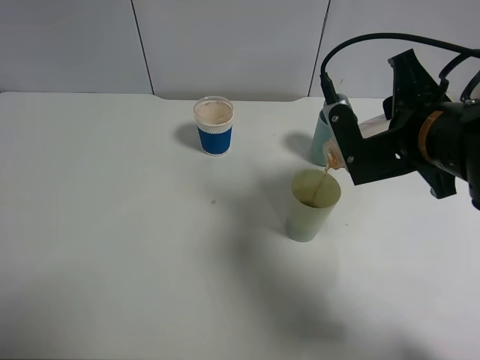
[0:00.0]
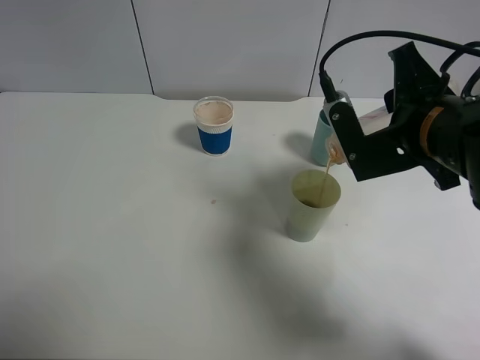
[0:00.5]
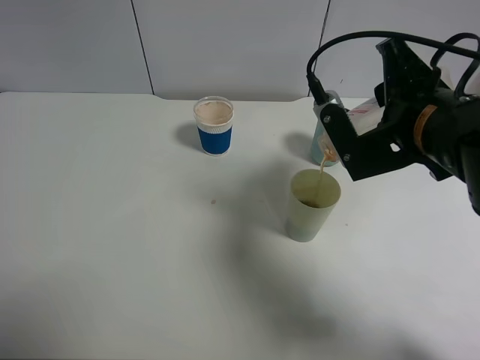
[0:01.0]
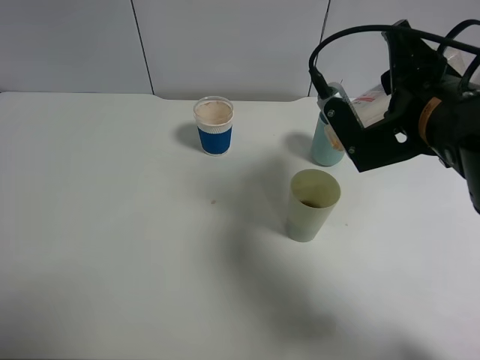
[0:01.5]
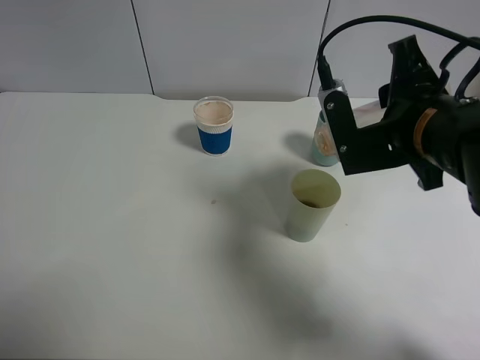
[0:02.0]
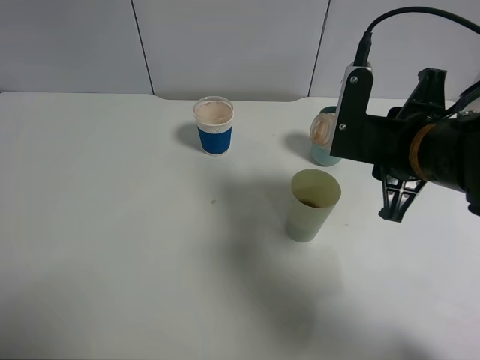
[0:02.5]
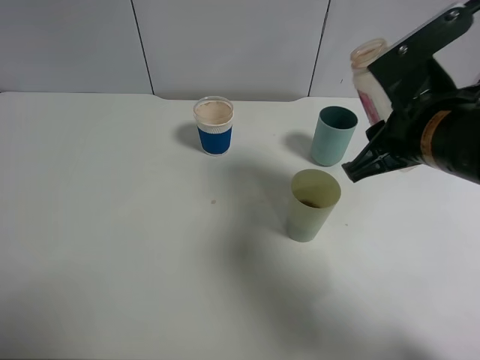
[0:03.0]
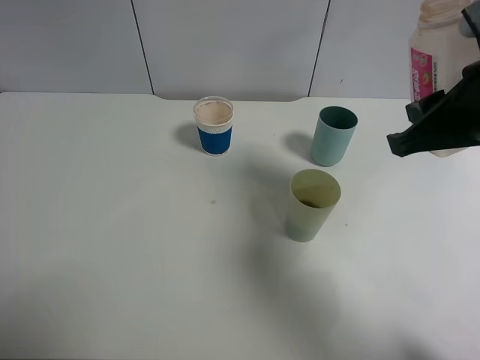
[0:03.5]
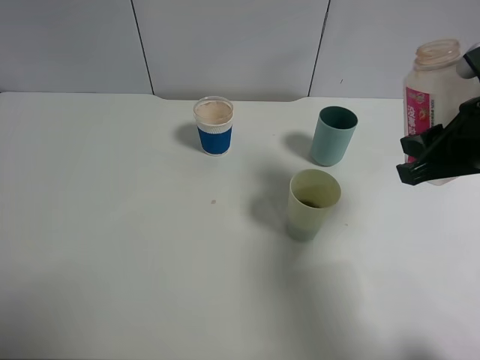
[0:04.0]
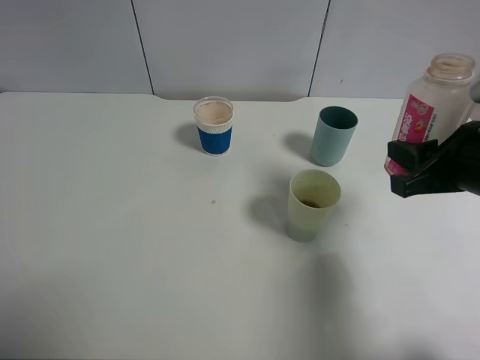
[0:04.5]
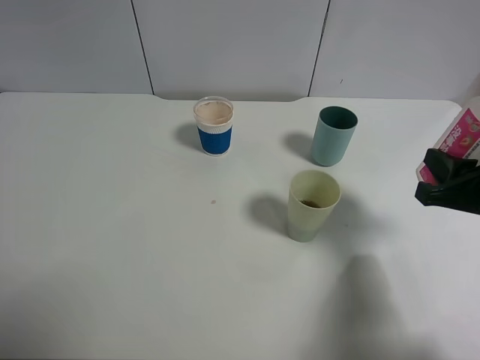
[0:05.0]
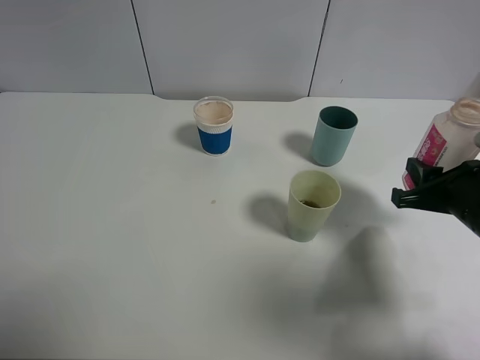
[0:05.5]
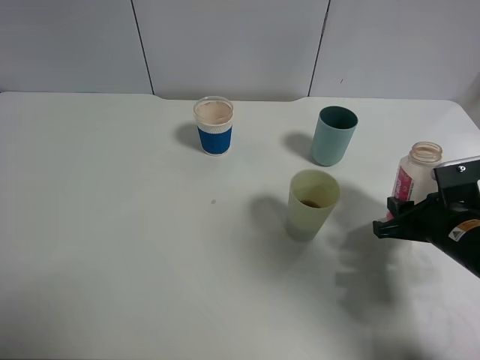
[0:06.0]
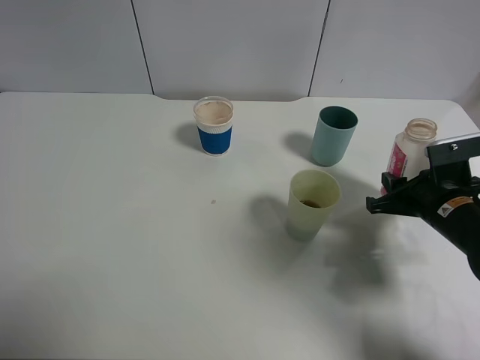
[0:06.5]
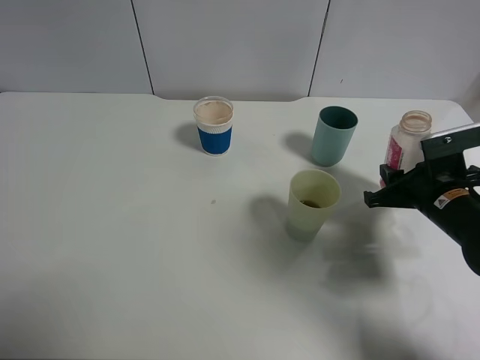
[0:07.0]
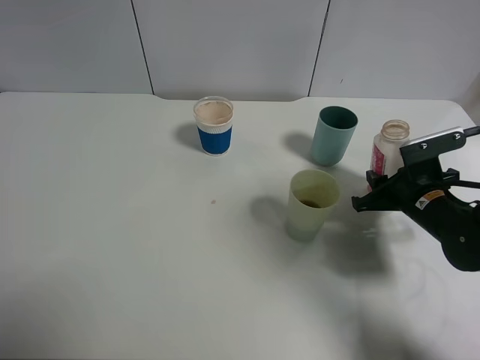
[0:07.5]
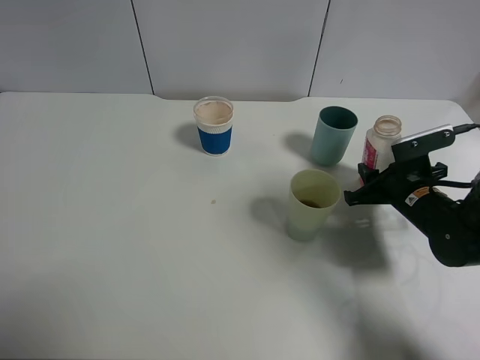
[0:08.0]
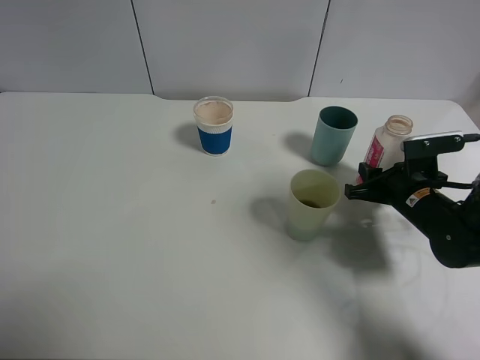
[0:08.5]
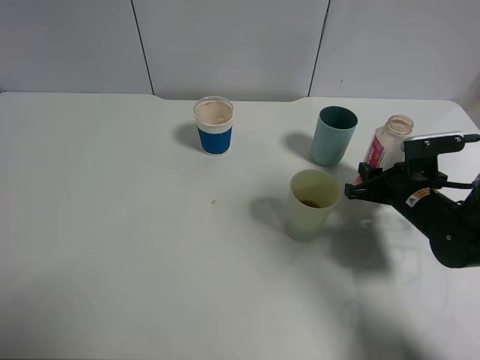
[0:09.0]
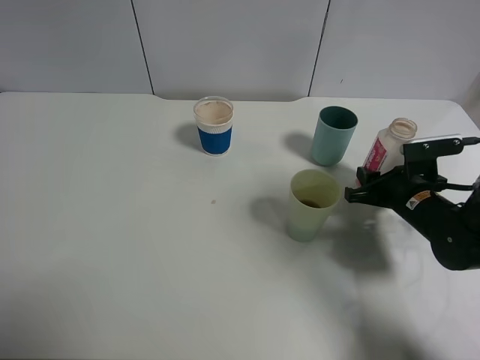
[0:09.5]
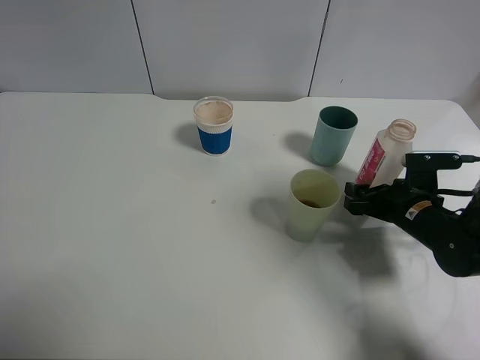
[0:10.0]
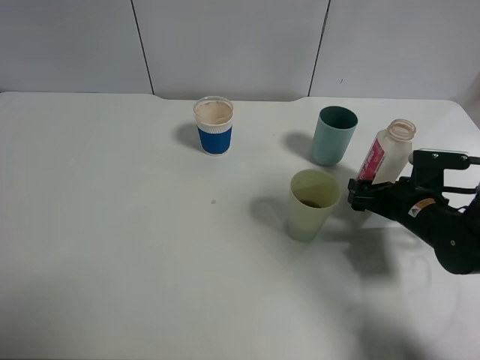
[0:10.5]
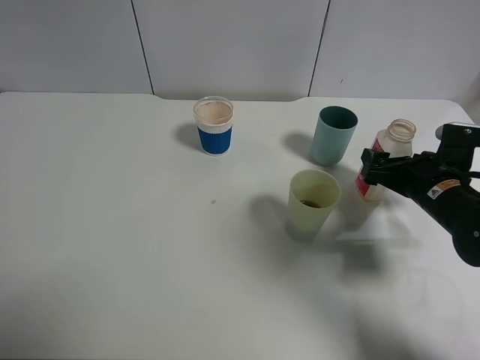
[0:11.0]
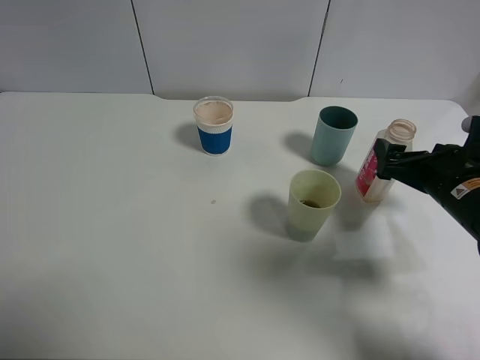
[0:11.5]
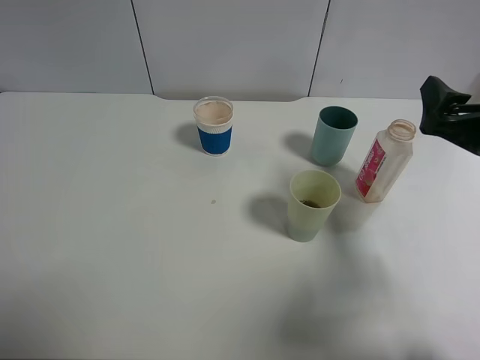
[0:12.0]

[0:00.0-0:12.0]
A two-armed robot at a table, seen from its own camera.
Task of the whole recording: use a clamp to hold the bottle of the drink, pour the beverage into a random cup, then clamp the cup containing the drink and pour the drink into another random cup.
Step, 0:00.0 to 0:02.0: Pour the drink into the green plastic cup with right gripper.
Step, 0:02.5 to 0:10.0: Place the drink bottle on the table with right gripper.
0:00.0 to 0:02.0: The grippers stay close to where they were, moving slightly.
0:02.0 to 0:04.0: The right gripper is displaced to the right by approximately 5 cm.
0:04.0 to 0:06.0: The right gripper travels downward by approximately 15 cm.
0:06.0 to 0:08.0: The right gripper travels forward by some 5 cm.
0:08.0 to 0:10.0: The right gripper opens its fingers.
0:10.0 to 0:12.0: The right gripper moves upward, approximately 15 cm.

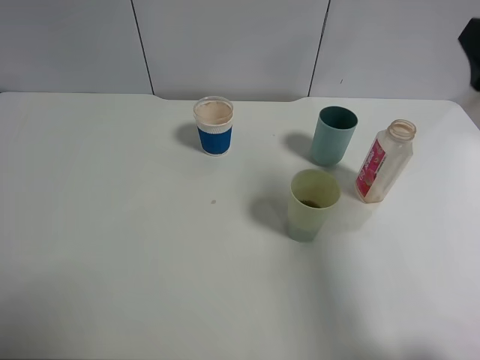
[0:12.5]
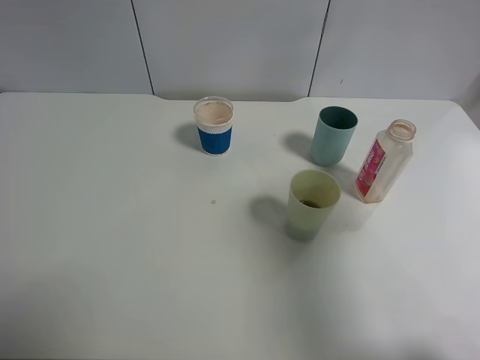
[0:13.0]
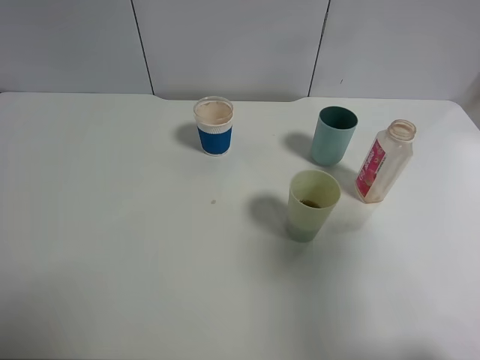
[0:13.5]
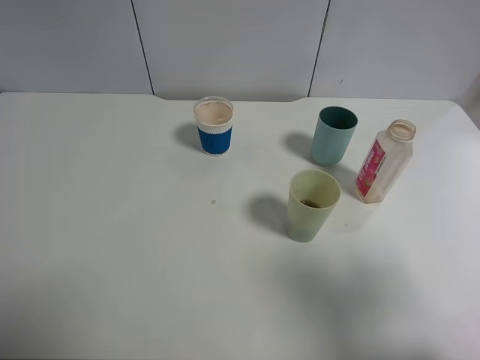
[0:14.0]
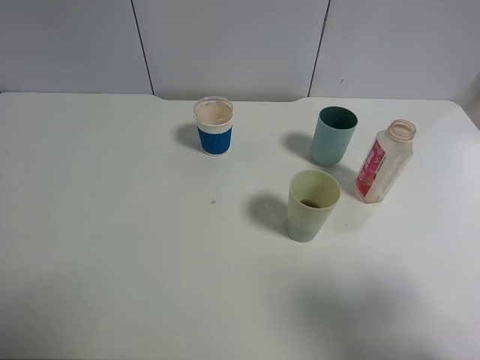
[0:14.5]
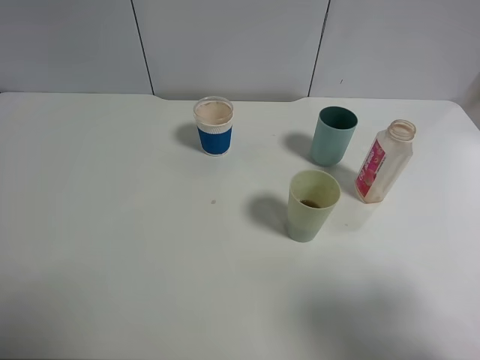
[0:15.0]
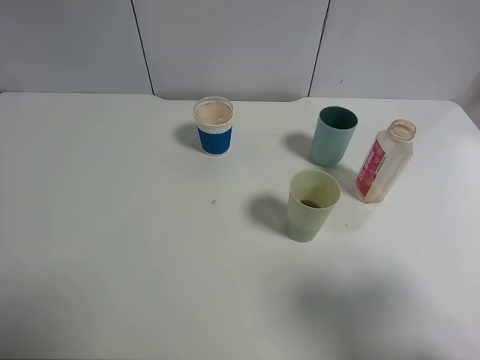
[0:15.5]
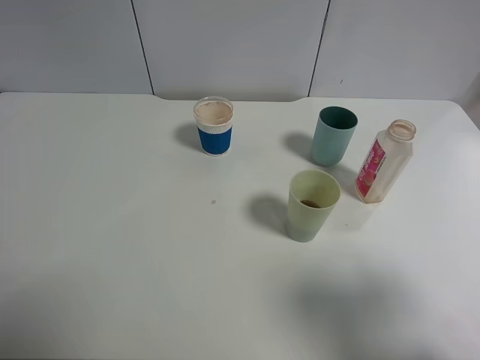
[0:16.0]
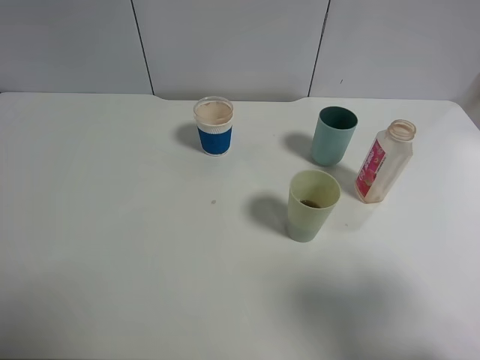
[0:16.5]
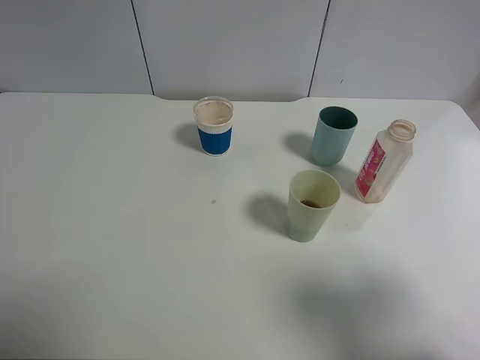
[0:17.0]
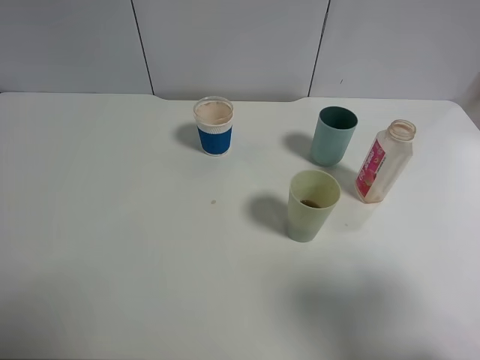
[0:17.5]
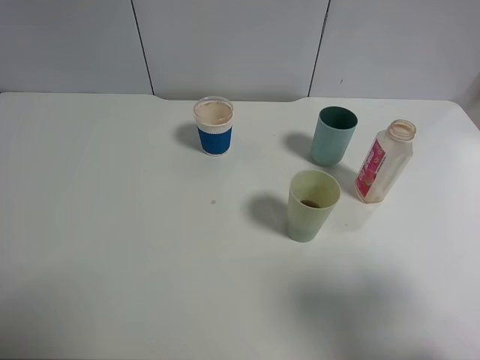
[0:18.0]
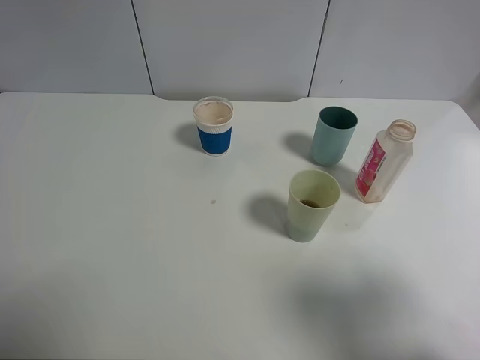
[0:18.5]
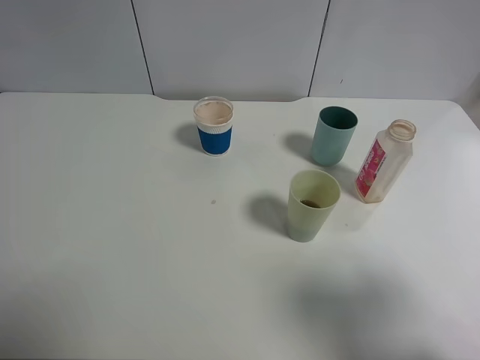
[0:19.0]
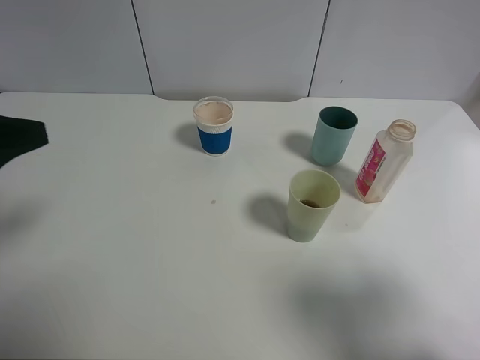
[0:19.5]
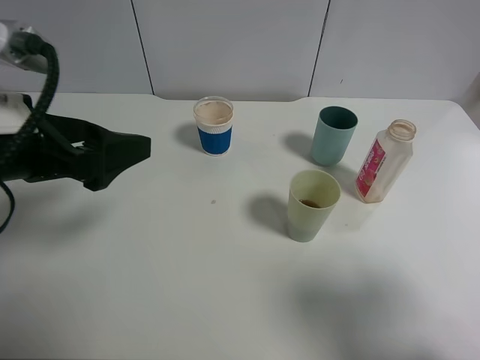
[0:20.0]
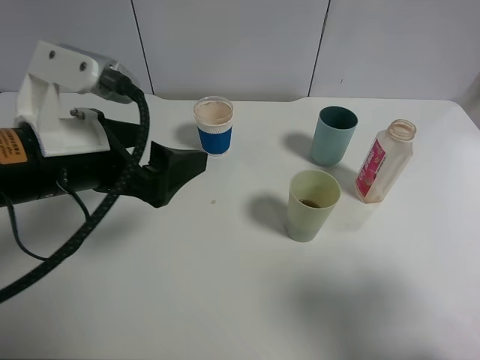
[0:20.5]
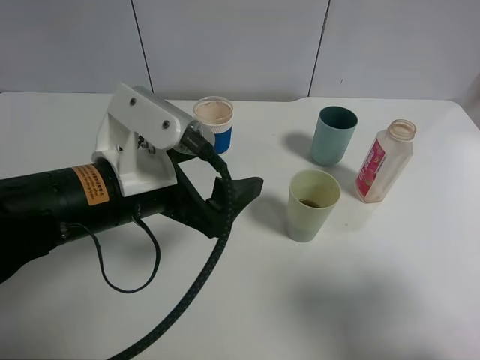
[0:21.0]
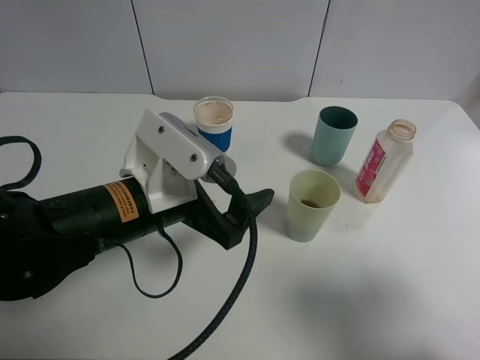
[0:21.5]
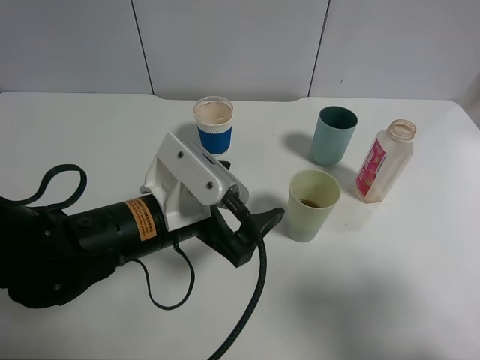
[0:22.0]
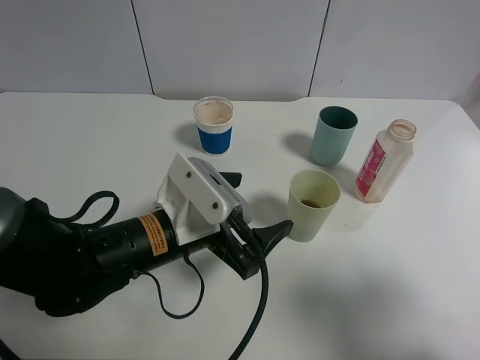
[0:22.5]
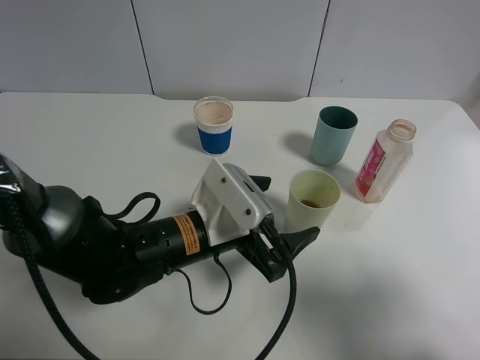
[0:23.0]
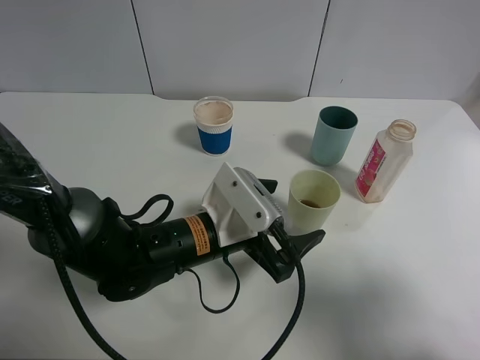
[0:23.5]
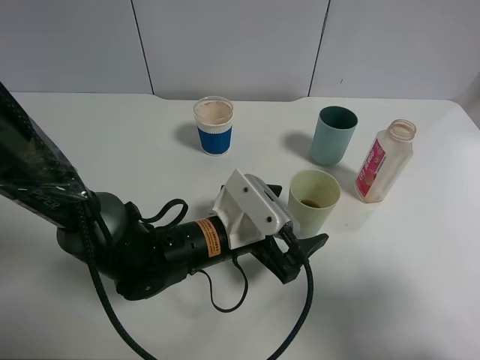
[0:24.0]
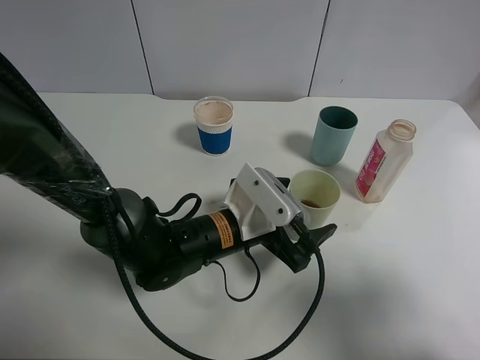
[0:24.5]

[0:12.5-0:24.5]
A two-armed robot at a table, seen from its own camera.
Task of the whole recording: use a clamp to hold the bottle of the drink, pour the beverage into a random cup, then clamp the cup containing the drink and pour the drink into another random cup.
0:12.5 to 0:14.5: The right gripper shifts some 15 cm backward.
0:18.5 to 0:20.5: The left gripper shifts roughly 20 cm to the right, forward and downward.
0:20.5 to 0:22.5: The left gripper heads downward and to the right, covering roughly 15 cm.
0:22.5 to 0:24.5: The left gripper goes roughly 5 cm to the right.

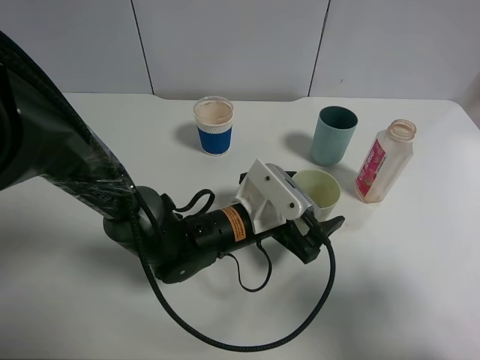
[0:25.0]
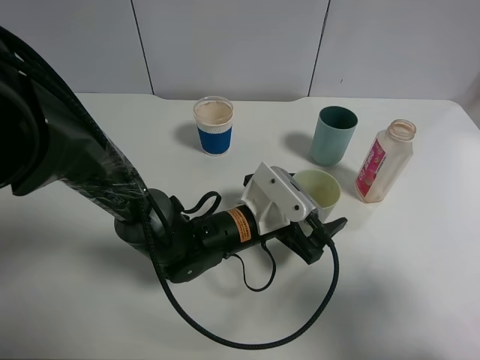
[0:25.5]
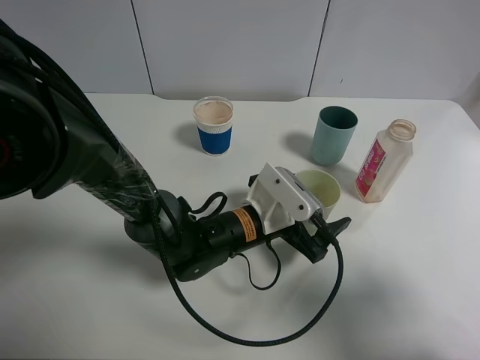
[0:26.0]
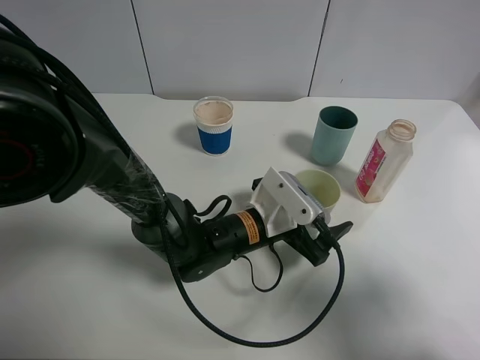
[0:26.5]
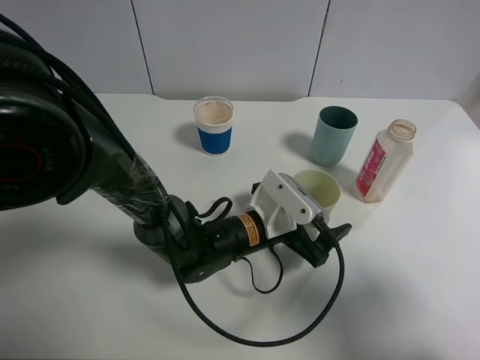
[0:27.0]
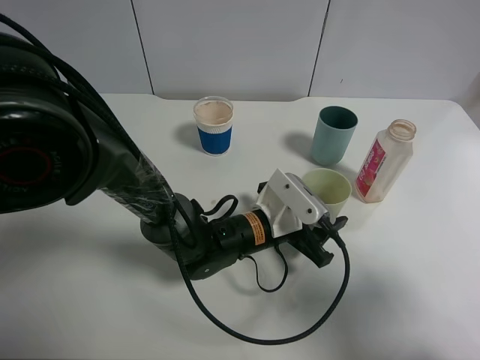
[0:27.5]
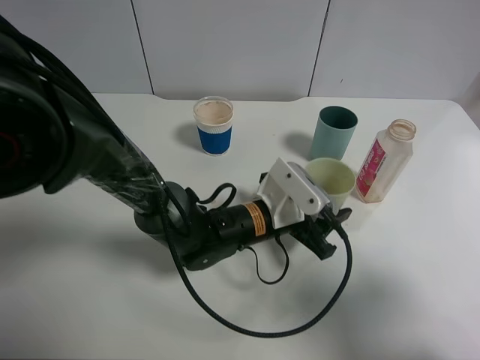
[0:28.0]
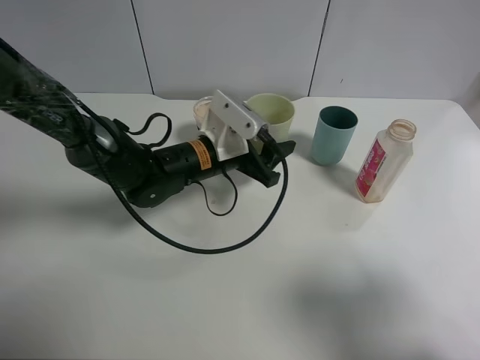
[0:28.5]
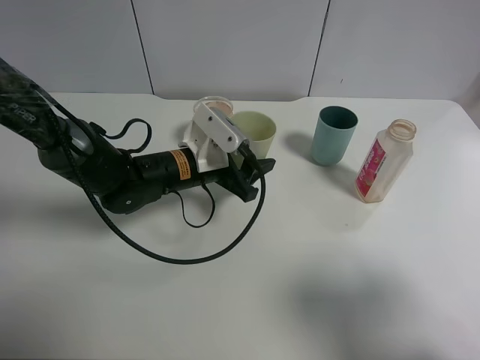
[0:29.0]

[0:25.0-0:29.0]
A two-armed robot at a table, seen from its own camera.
Task of the whole recording: use a clamp to hold the bottle of the drink, pour the beverage into a random cup, then clamp the cup containing the drink and pour the drink into another random cup.
0:25.0 to 0:27.0: The grippers move only a little.
0:27.0 to 0:29.0: The left gripper heads to the left, forward and upward, covering approximately 15 cm, and closes up.
